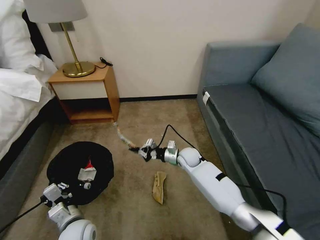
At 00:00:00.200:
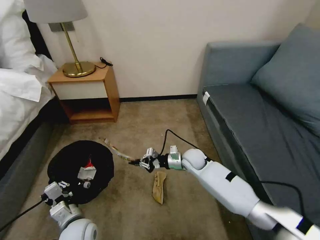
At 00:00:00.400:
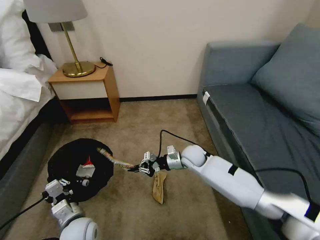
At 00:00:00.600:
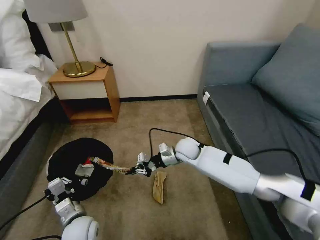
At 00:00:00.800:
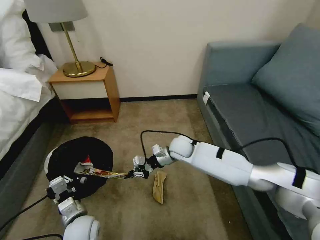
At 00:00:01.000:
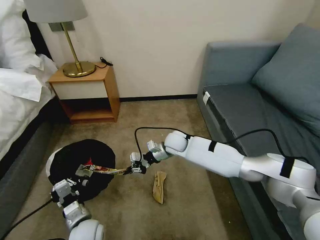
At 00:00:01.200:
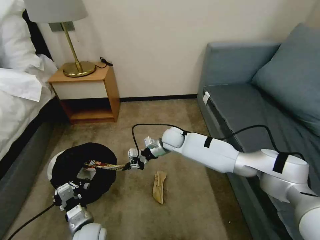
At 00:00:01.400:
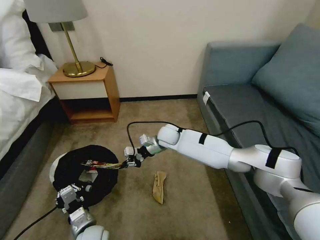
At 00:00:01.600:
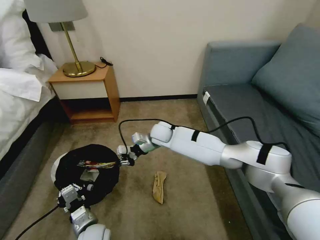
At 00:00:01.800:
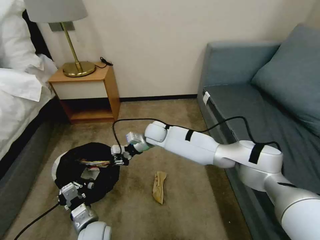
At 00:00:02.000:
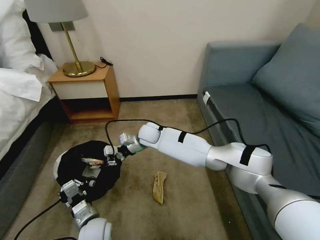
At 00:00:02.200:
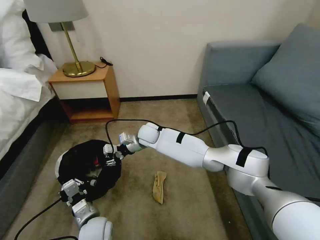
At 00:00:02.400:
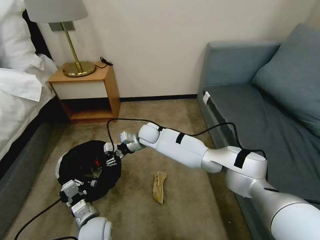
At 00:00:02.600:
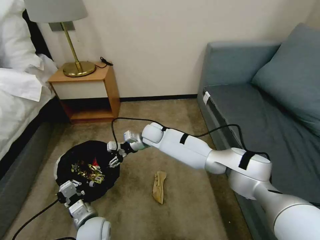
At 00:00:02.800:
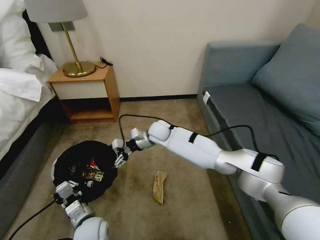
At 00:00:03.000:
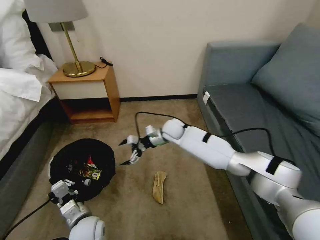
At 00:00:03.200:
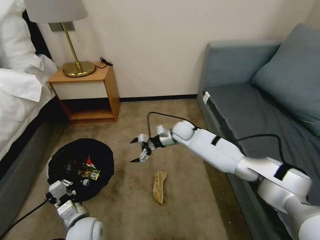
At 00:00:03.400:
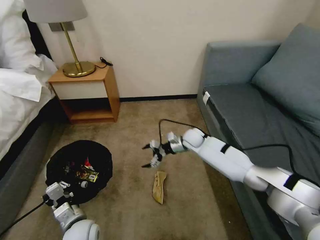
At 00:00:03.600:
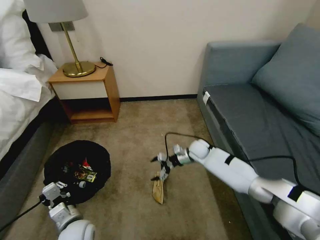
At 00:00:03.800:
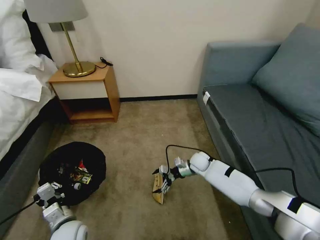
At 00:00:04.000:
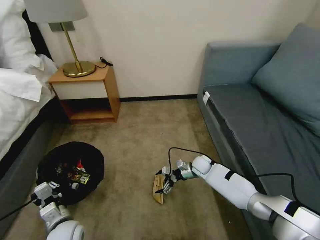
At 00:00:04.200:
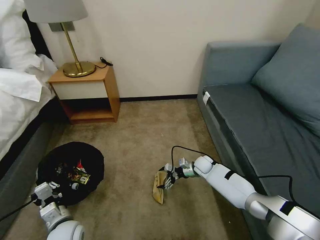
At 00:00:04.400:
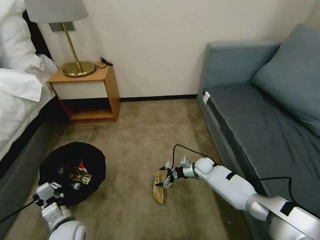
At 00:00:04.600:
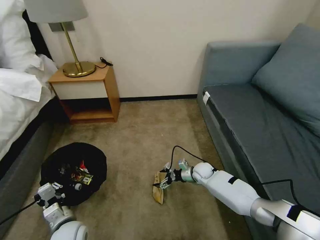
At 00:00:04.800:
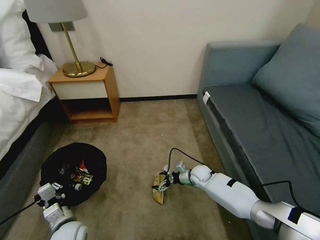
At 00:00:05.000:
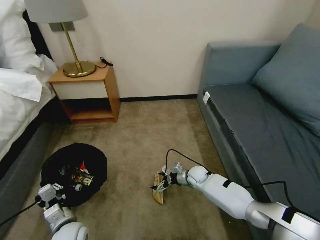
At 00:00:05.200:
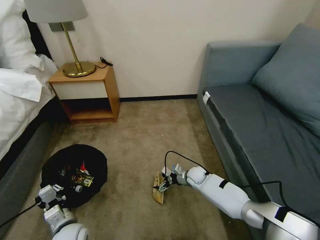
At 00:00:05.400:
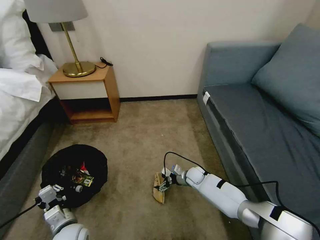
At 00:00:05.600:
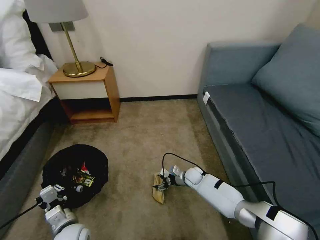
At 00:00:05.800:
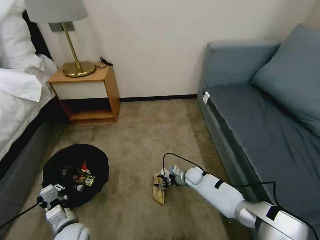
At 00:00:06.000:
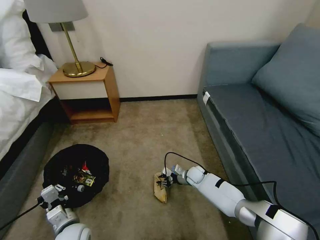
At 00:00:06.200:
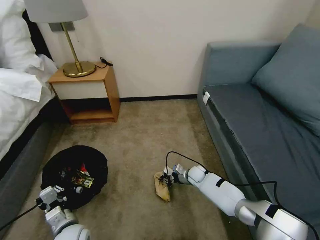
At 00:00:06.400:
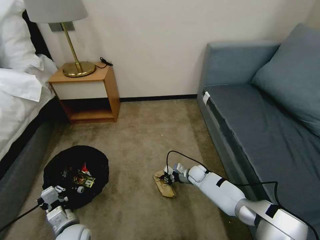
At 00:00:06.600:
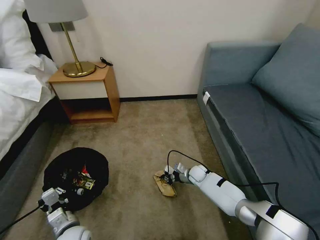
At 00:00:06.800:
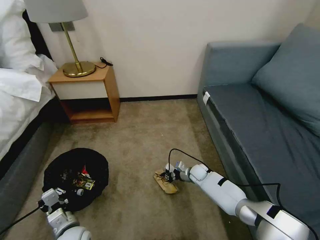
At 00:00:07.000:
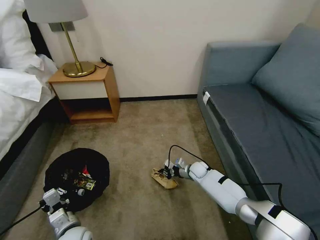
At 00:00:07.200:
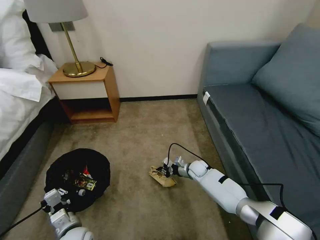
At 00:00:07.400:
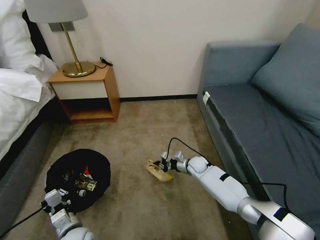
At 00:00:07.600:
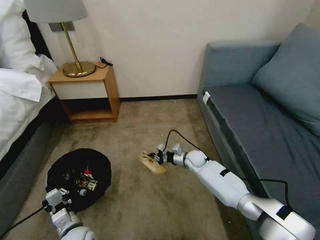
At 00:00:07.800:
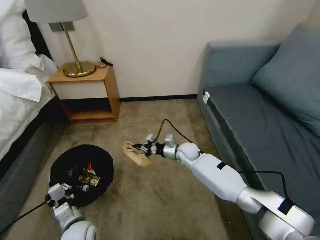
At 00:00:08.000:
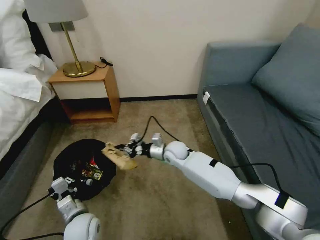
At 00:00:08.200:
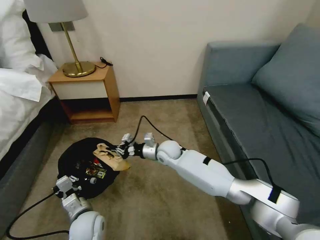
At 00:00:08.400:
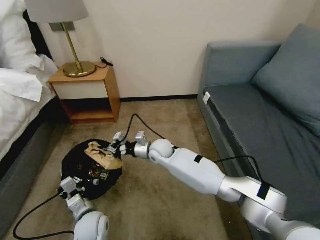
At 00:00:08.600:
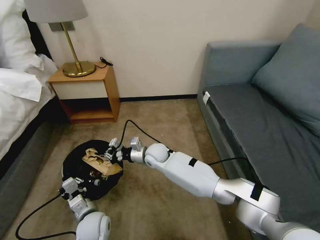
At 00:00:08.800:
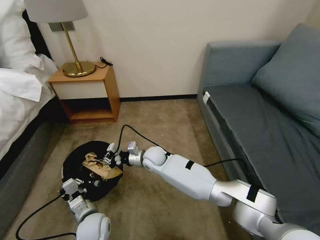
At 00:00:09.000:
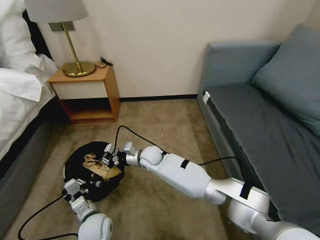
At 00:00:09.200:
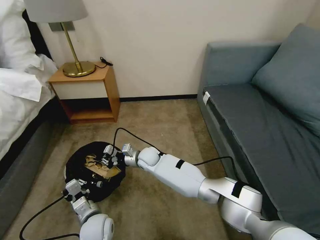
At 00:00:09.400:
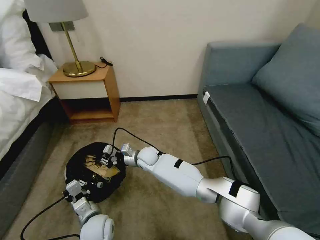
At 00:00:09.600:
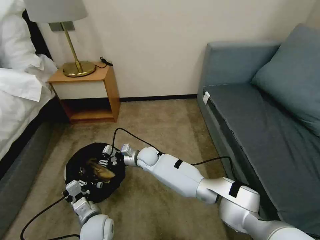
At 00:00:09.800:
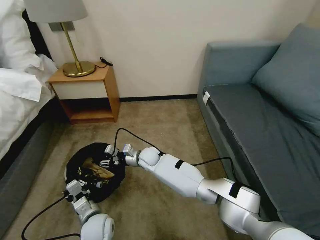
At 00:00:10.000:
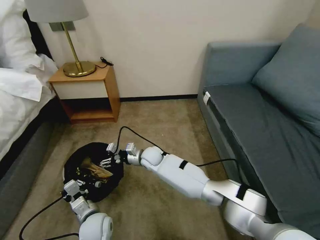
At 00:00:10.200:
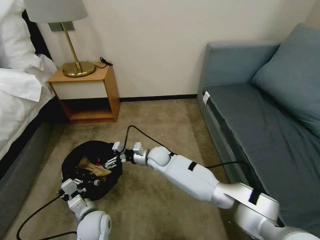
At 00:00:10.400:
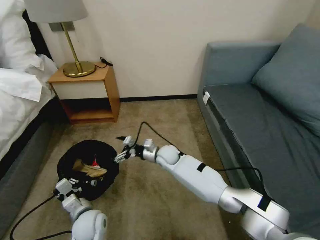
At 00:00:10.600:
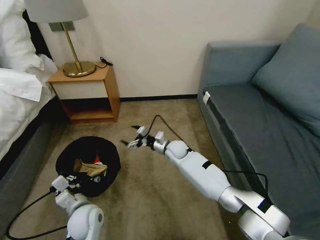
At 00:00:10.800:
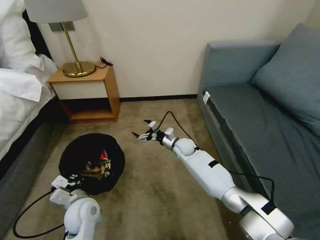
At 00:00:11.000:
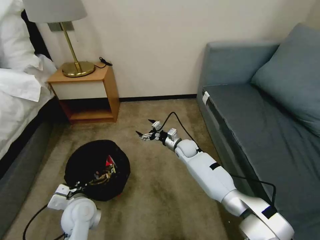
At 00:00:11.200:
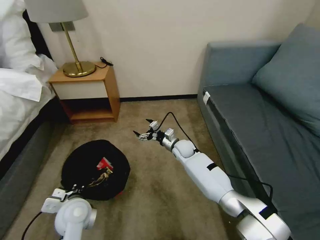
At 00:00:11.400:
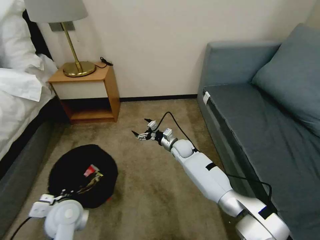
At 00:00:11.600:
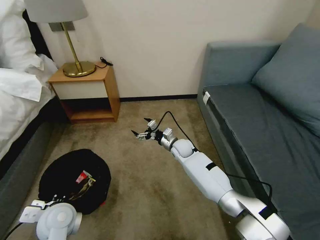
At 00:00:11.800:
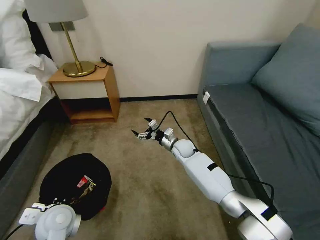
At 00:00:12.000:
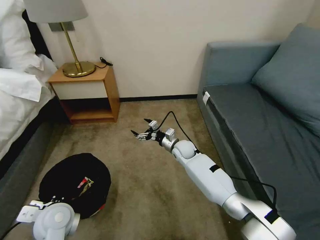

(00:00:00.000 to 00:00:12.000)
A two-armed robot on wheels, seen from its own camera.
Task of the whole recording: Pick up the trash bin, then pick up the garbage on the floor and place it into the trash bin.
00:00:00.000 - 00:00:01.600: The right gripper is displaced upward and to the left by about 15 cm; the left gripper moves some 5 cm.
00:00:01.600 - 00:00:03.000: The right gripper opens its fingers.
00:00:03.000 - 00:00:04.400: The left gripper heads to the left, covering about 10 cm, while the right gripper goes some 30 cm to the right and downward.
00:00:04.400 - 00:00:06.000: The right gripper shifts by about 5 cm, and closes up.
00:00:06.000 - 00:00:07.600: The right gripper heads upward, covering about 10 cm.
00:00:07.600 - 00:00:09.000: The left gripper shifts roughly 5 cm to the right; the right gripper heads to the left, covering approximately 20 cm.
00:00:09.000 - 00:00:10.400: The right gripper travels to the right by approximately 5 cm, and opens up.
00:00:10.400 - 00:00:12.000: The right gripper shifts about 5 cm to the right, while the left gripper goes about 10 cm upward and to the left.

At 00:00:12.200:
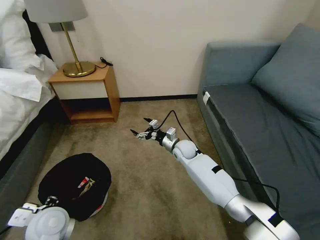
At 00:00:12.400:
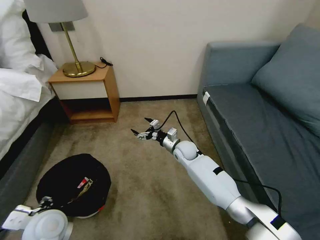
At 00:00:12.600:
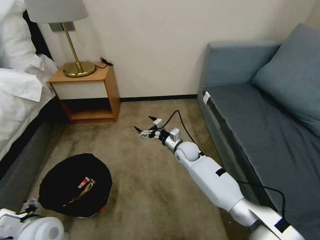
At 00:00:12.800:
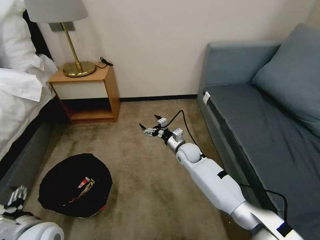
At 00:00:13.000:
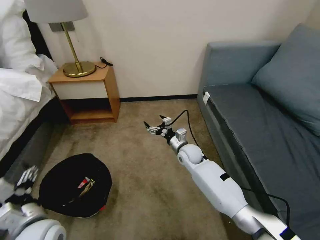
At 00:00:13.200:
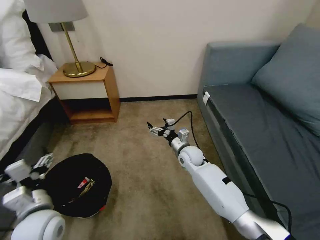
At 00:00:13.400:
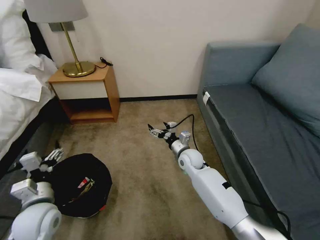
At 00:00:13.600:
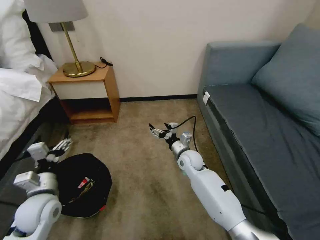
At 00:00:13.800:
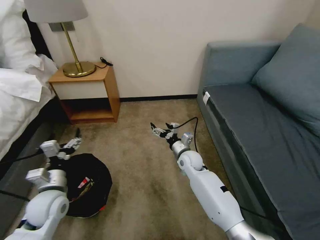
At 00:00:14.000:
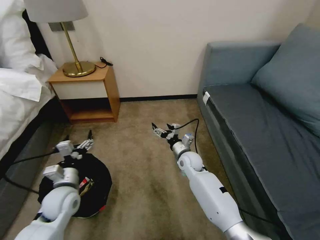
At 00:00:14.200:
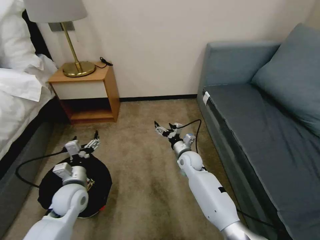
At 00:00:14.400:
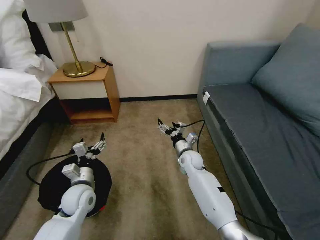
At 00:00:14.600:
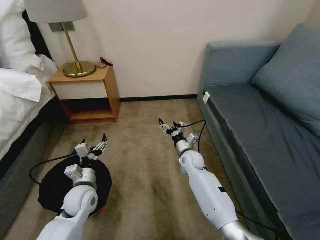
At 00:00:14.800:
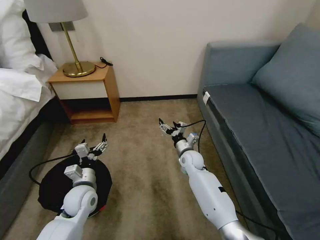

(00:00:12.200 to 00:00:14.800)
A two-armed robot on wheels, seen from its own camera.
Task of the whole recording: Pick up the trash bin, then pick up the garbage on the floor and place it into the trash bin.
00:00:12.200 - 00:00:13.400: The right gripper moves roughly 5 cm. The left gripper opens its fingers.
00:00:13.400 - 00:00:14.800: The left gripper moves forward, downward and to the right, approximately 10 cm.
